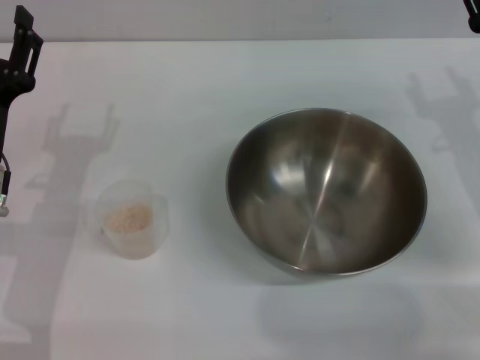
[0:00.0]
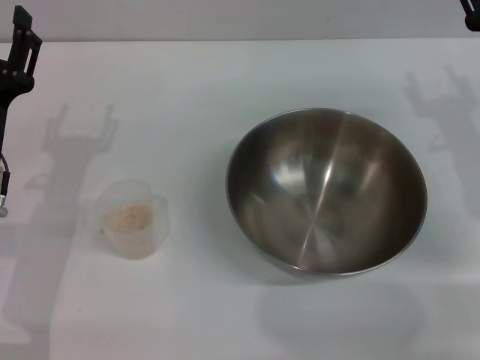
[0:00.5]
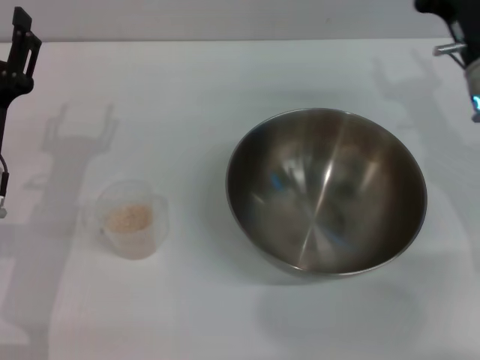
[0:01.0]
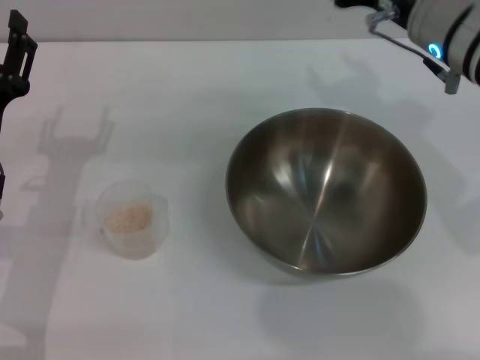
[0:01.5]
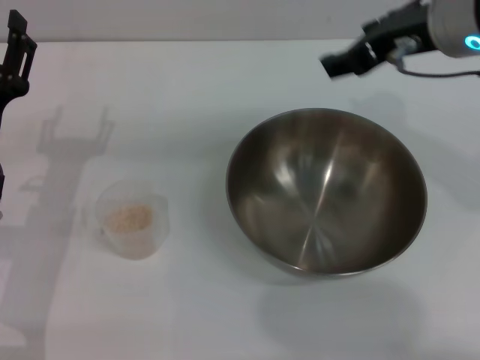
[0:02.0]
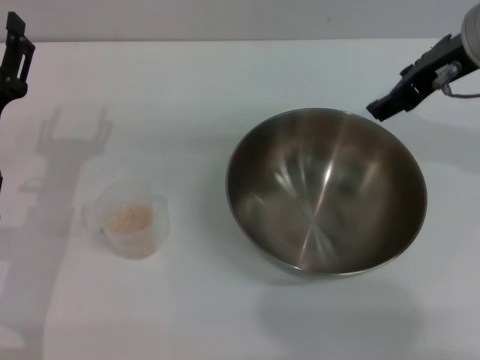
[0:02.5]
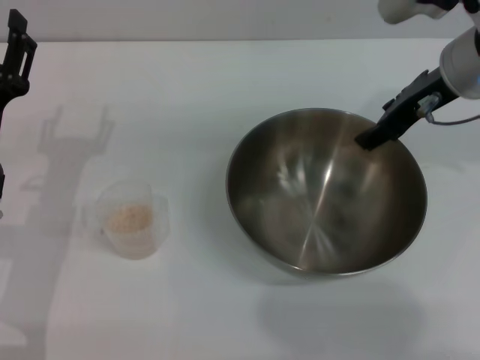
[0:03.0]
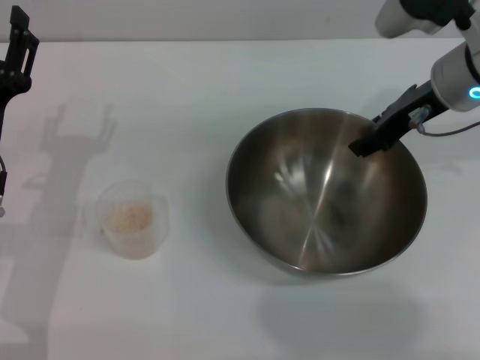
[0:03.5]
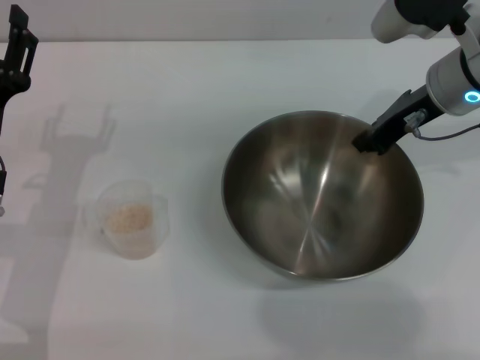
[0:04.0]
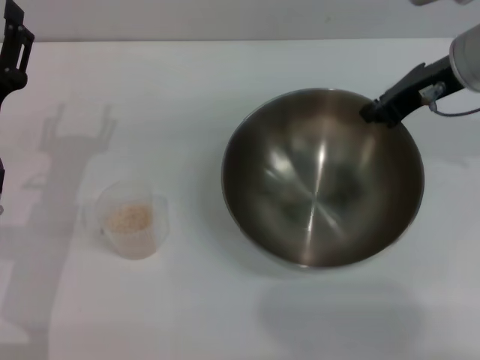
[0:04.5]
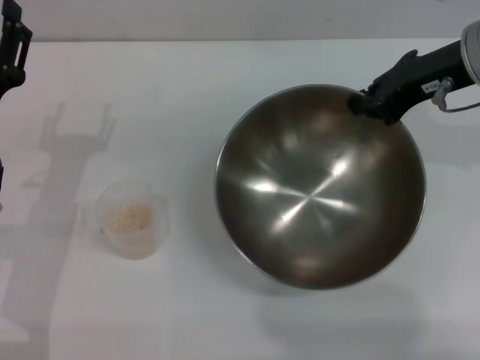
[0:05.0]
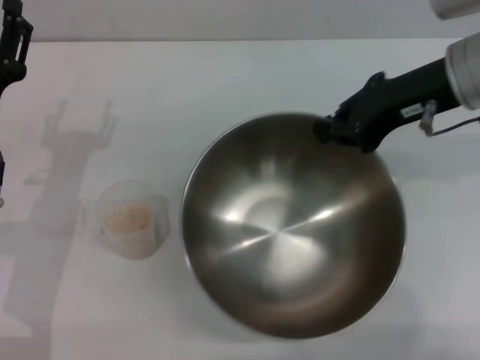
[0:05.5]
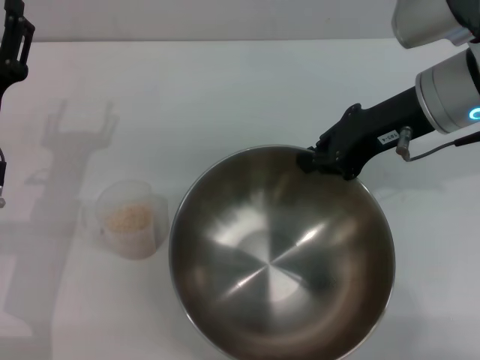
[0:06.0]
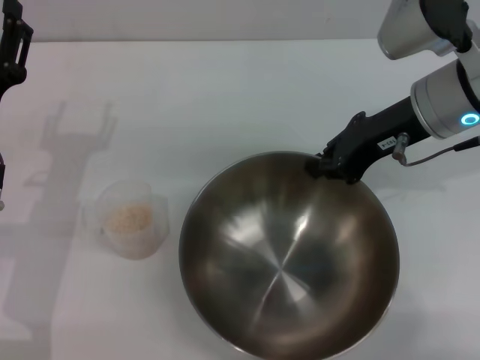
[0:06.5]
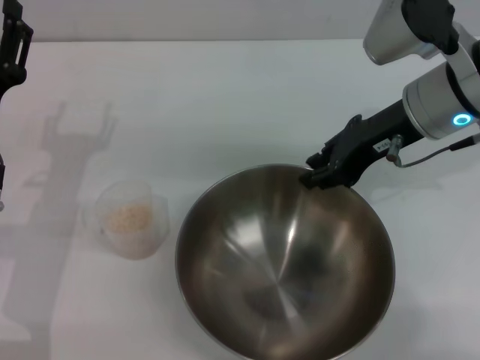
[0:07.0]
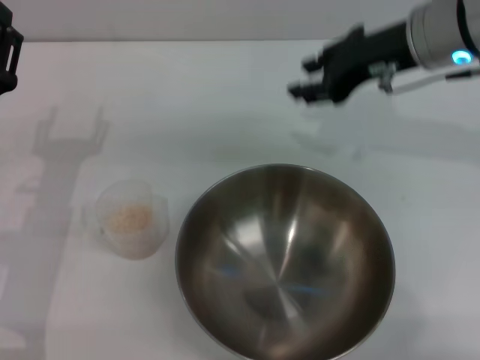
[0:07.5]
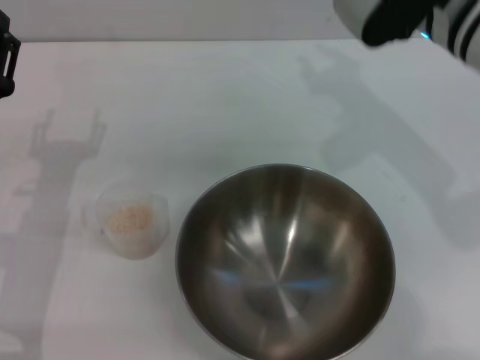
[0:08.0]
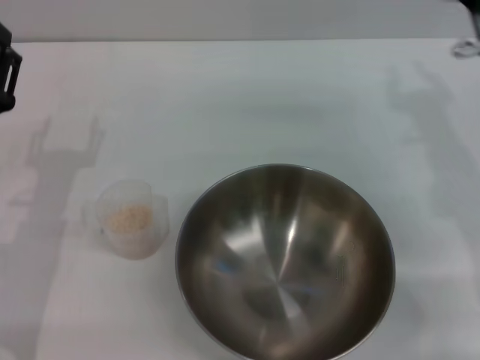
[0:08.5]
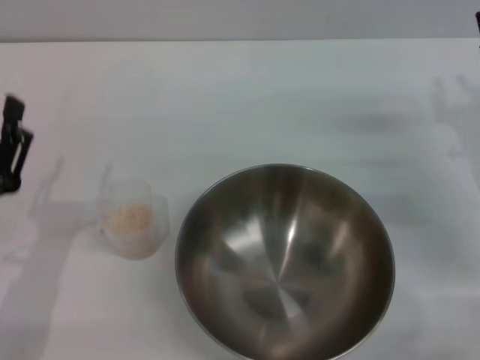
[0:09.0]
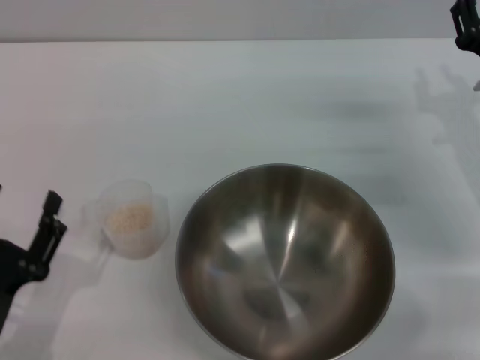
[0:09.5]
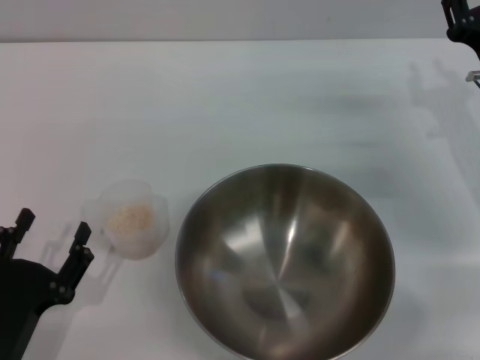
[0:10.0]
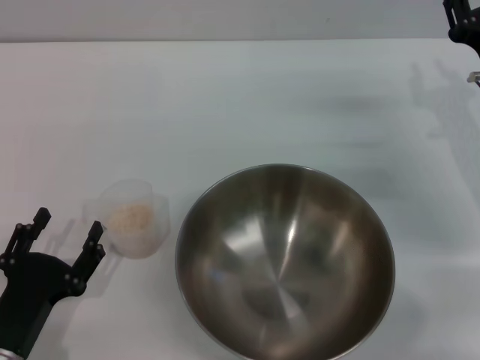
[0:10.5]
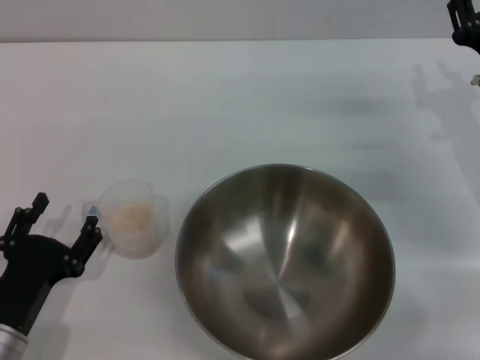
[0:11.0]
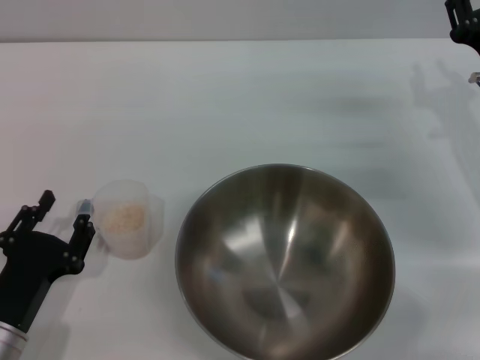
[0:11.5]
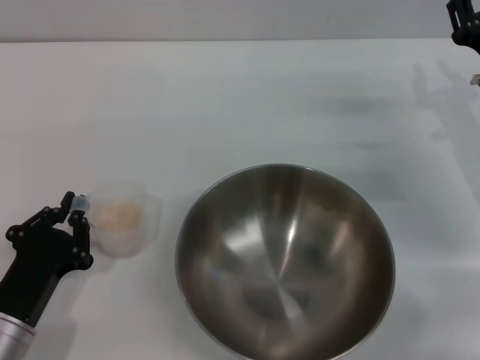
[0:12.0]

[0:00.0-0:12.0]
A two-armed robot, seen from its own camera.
Task of the whole recording: Place the bowl in the middle of the table with one hand and pour the rice from the grain cup into it with the other hand.
Step, 0:00.0 to 0:05.0: Pick up the bowl with the right gripper.
Step, 0:06.0 to 0:08.5: Place the bowl in the center of view with the right gripper.
0:00.0 to 0:02.0: The right gripper moves upward and to the left, some 20 cm.
0:02.0 to 0:04.0: The right gripper is displaced downward by some 10 cm, and closes up.
0:06.0 to 0:08.0: The right gripper opens its fingers.
0:08.0 to 0:10.0: The right gripper goes about 20 cm downward and to the right. Meanwhile the left gripper heads backward and downward, covering about 15 cm.
0:10.0 to 0:12.0: The left gripper closes its fingers.

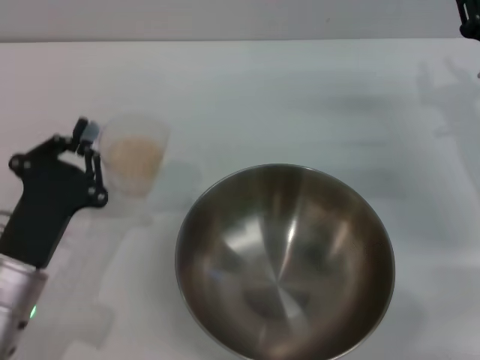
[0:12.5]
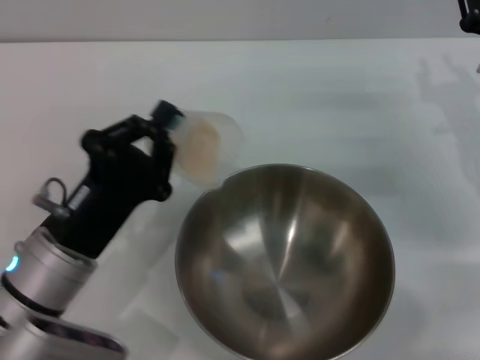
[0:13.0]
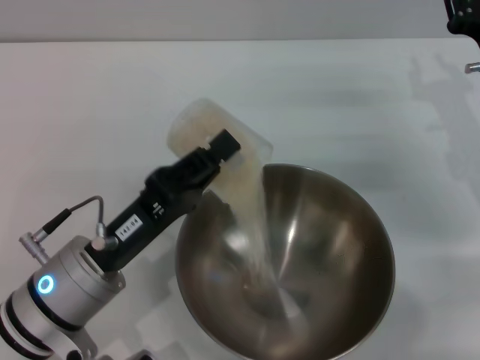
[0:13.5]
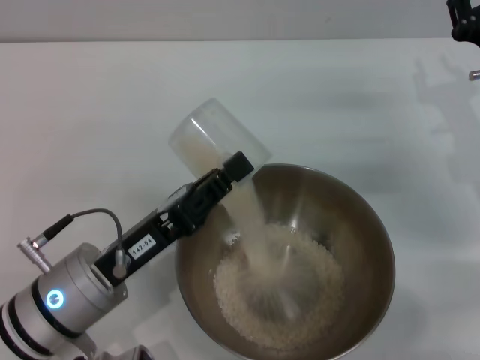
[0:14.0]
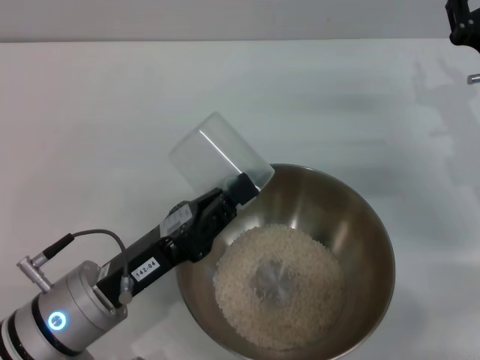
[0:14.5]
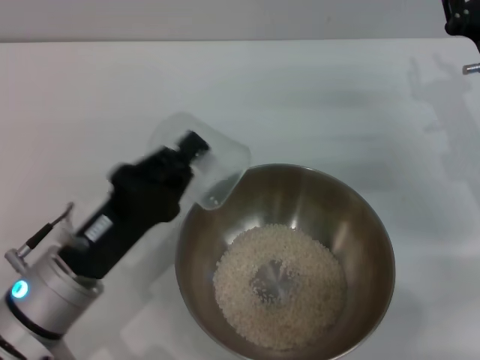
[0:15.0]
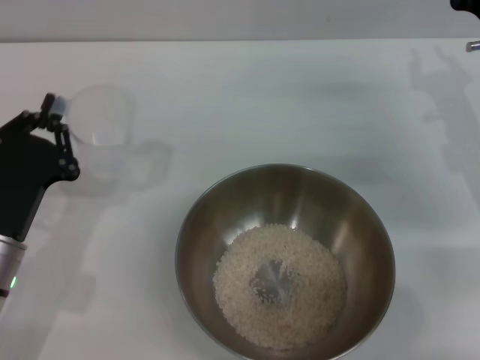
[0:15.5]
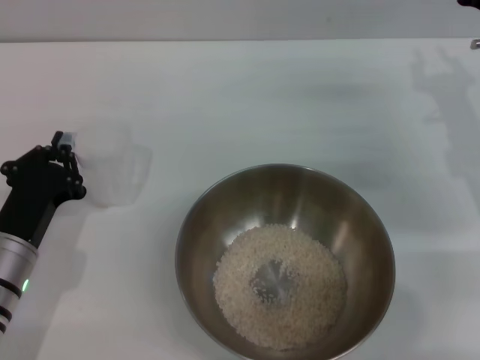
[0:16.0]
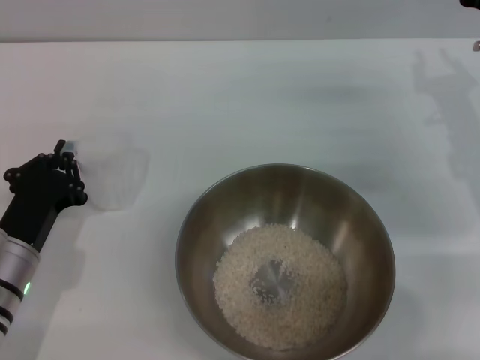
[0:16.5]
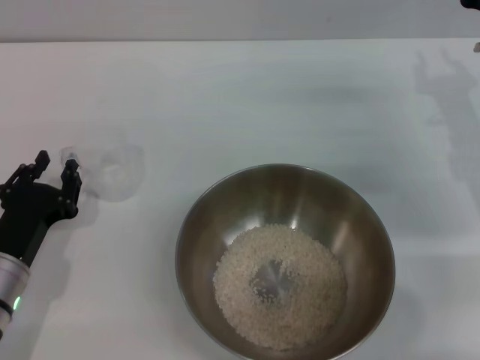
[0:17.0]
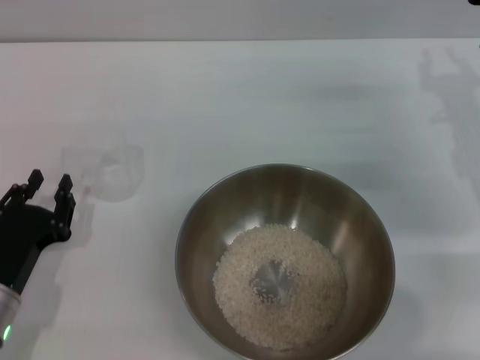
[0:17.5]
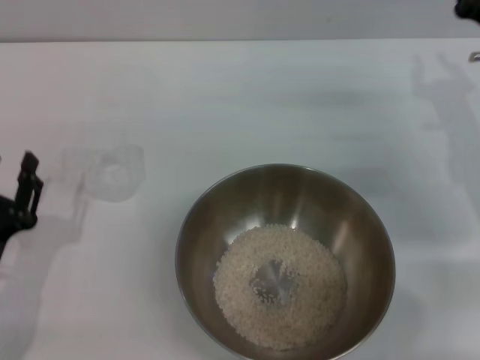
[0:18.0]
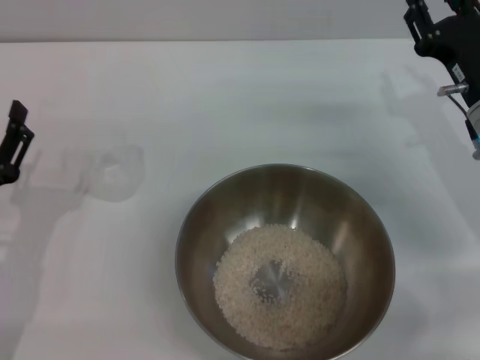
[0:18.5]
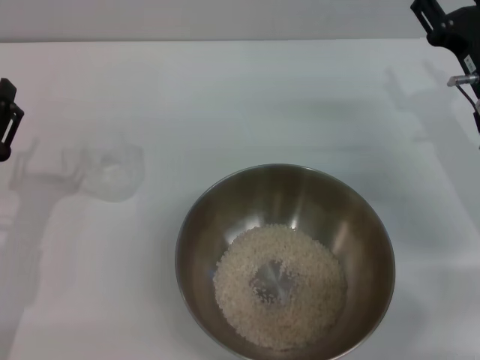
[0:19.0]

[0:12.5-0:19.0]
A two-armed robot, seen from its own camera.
Task of the whole recording: Place the bowl in the middle of the table with one hand and pour the rice from the grain cup into it with the other hand.
Step, 0:13.0 to 0:14.0: Pour the rice from the cup into the bowl with the left gripper.
Step, 0:14.5 to 0:17.0: Place the cup on the table with the left gripper.
0:12.5 to 0:14.5: The left gripper moves to the right, approximately 5 cm.
0:14.5 to 0:17.0: The left gripper moves to the left and downward, about 10 cm.
0:17.0 to 0:19.0: The right gripper opens; the left gripper ends up approximately 5 cm from where it was, and opens.
